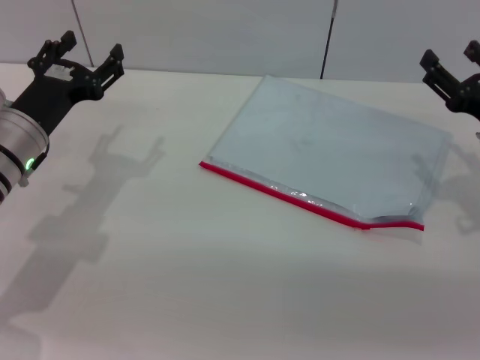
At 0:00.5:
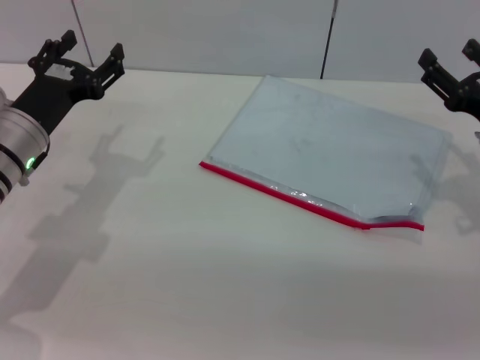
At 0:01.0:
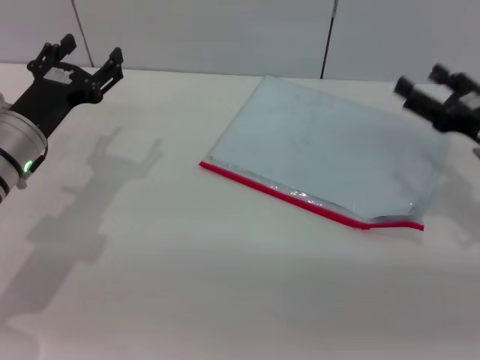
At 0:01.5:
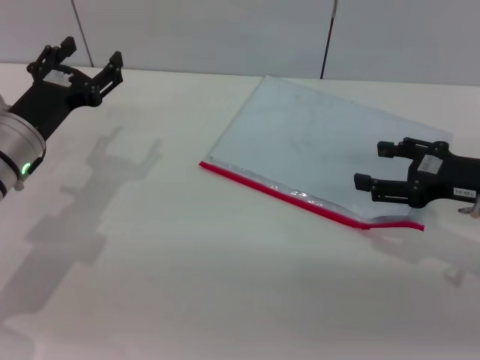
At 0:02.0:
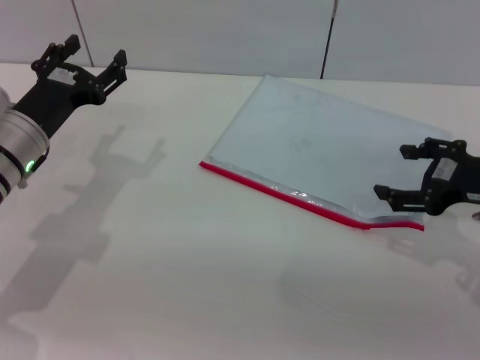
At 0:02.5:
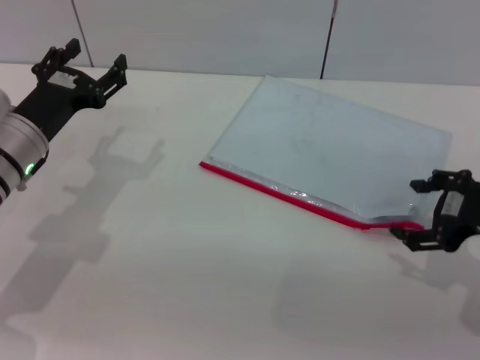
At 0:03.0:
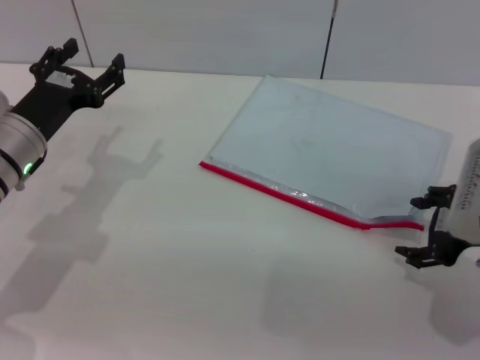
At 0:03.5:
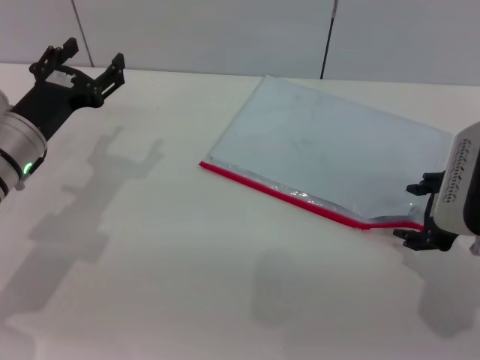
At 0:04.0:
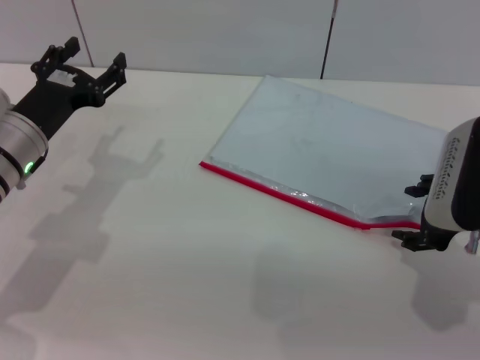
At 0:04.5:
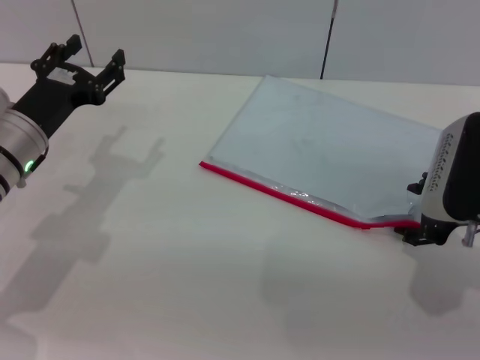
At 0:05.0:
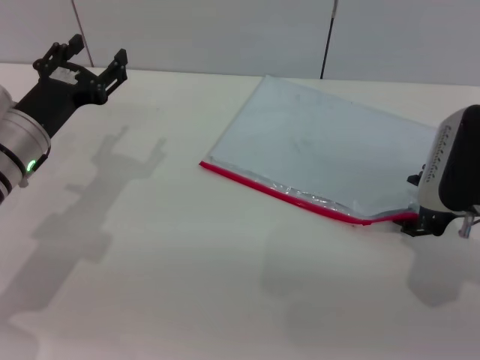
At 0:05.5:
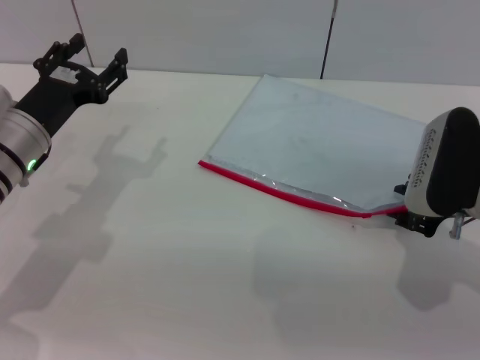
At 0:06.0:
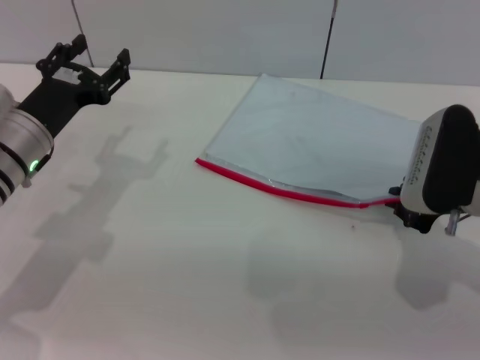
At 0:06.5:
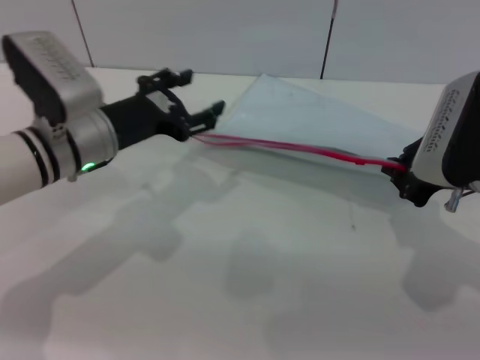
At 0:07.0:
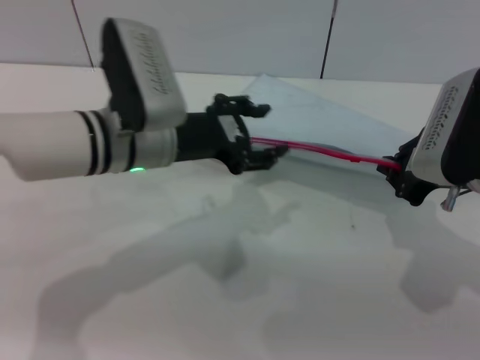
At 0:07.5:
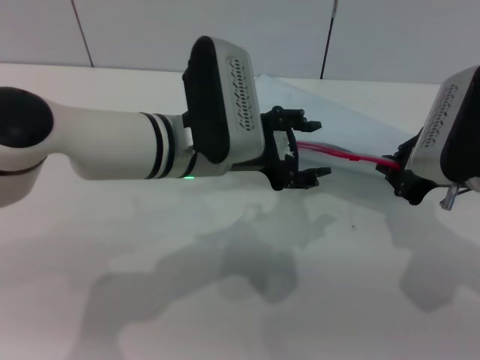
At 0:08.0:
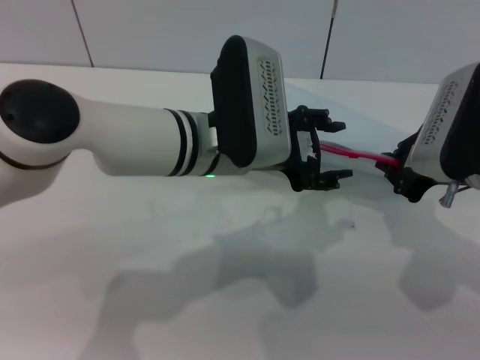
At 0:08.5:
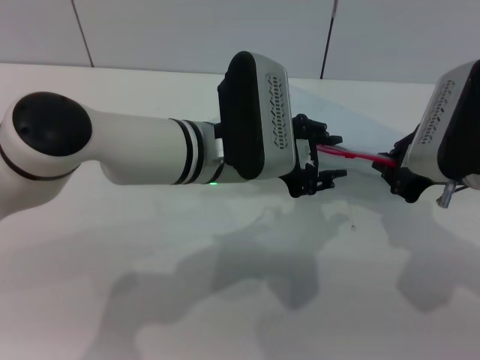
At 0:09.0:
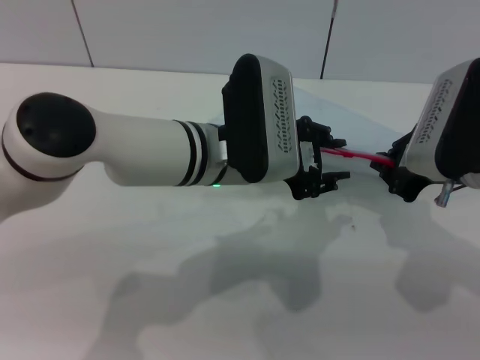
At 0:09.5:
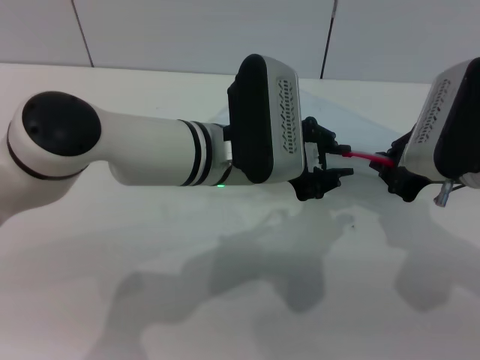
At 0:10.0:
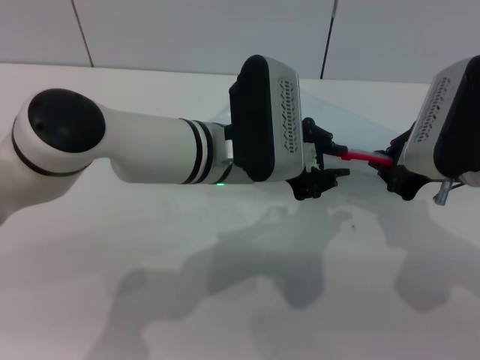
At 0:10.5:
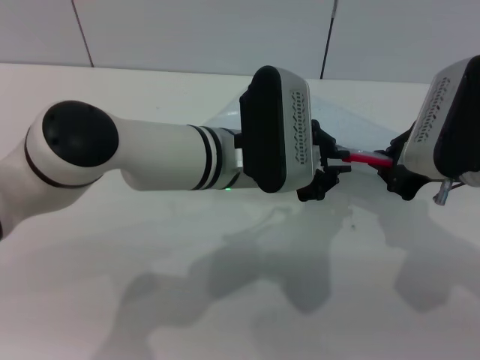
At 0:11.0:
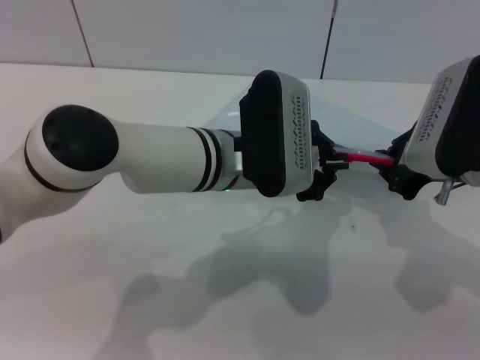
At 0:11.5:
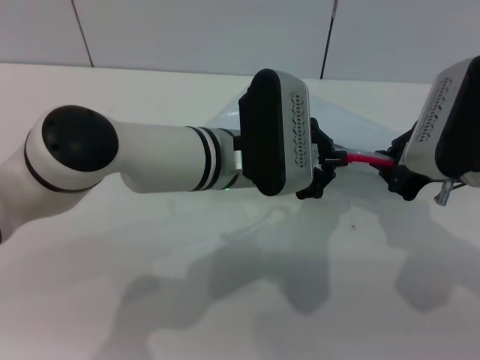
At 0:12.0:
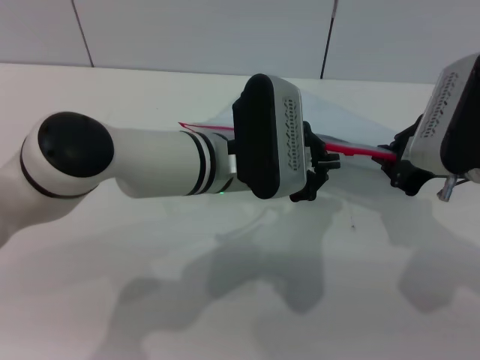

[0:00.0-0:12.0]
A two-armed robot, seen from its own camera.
Step, 0:00.0 to 0:07.0: Pick up the transparent plastic bag with the right gripper.
0:04.0 to 0:06.0: The right gripper closes its fingers.
0:06.0 to 0:08.0: The left gripper shifts approximately 20 cm to the right.
0:08.0 to 0:10.0: The left gripper closes up.
0:10.0 to 0:12.0: The two grippers keep their place.

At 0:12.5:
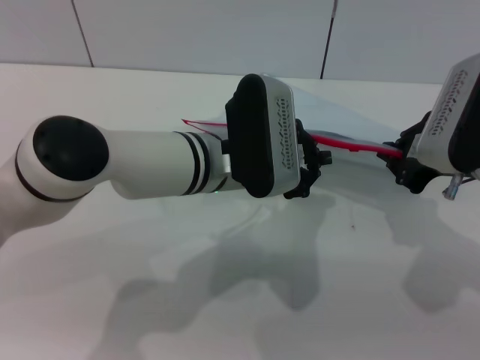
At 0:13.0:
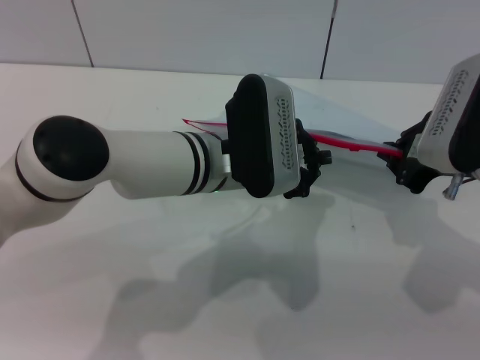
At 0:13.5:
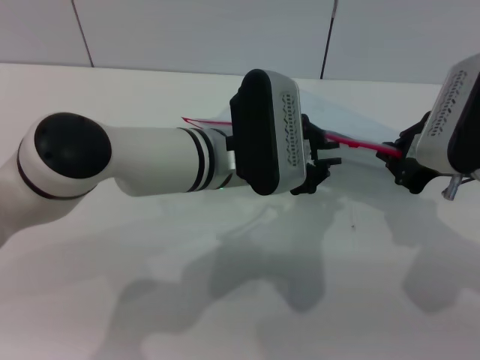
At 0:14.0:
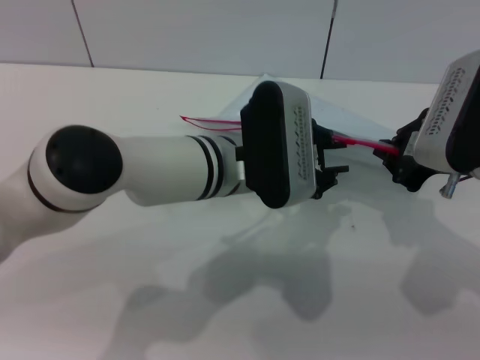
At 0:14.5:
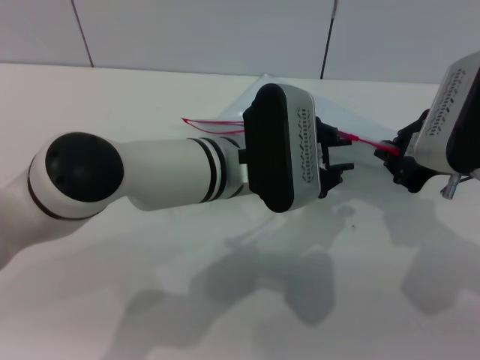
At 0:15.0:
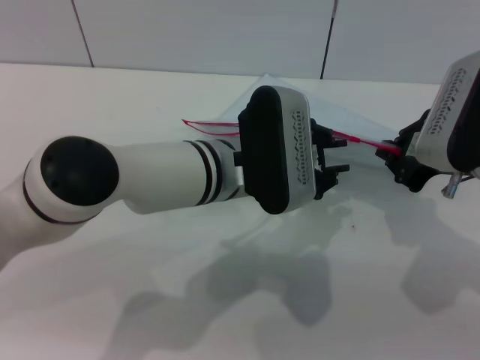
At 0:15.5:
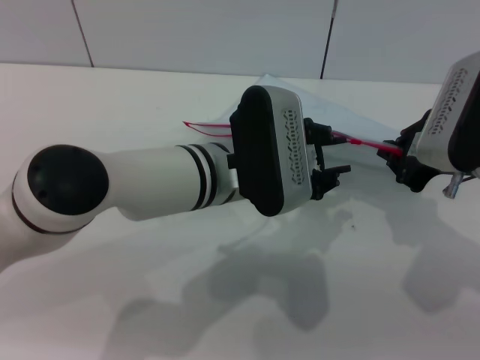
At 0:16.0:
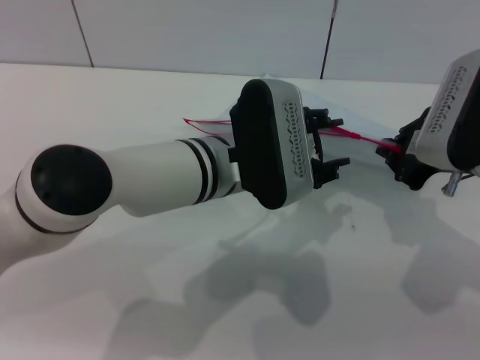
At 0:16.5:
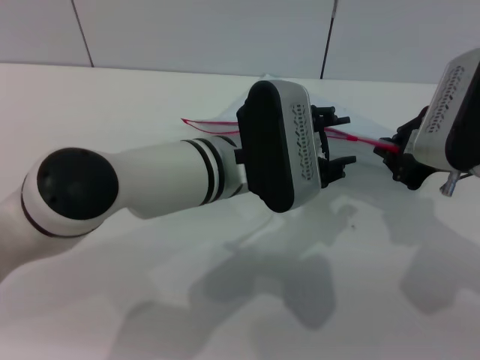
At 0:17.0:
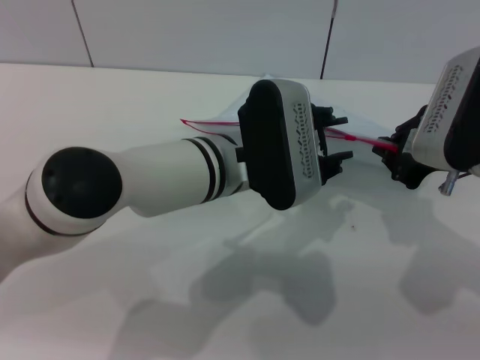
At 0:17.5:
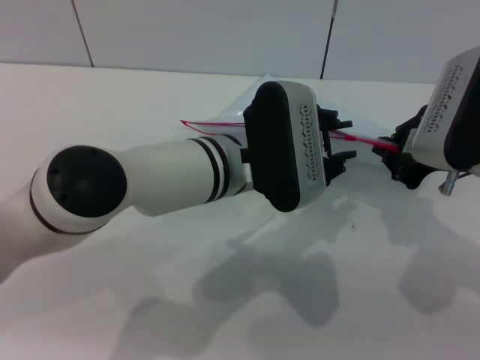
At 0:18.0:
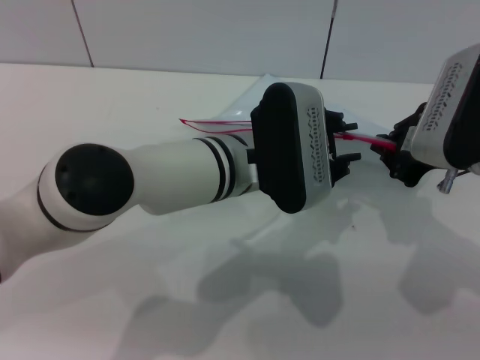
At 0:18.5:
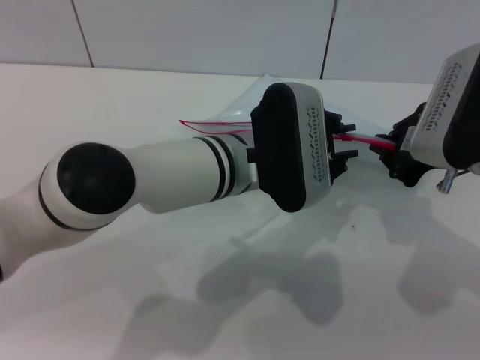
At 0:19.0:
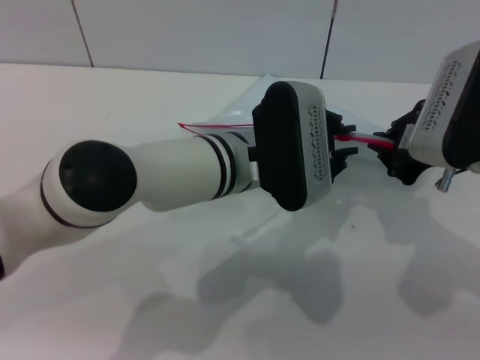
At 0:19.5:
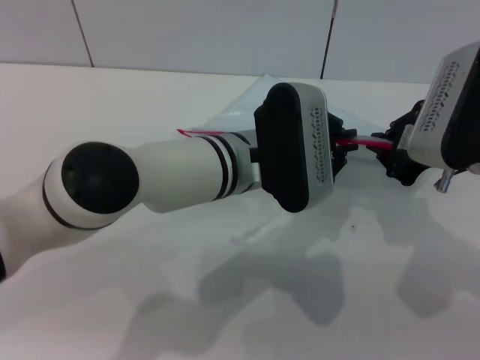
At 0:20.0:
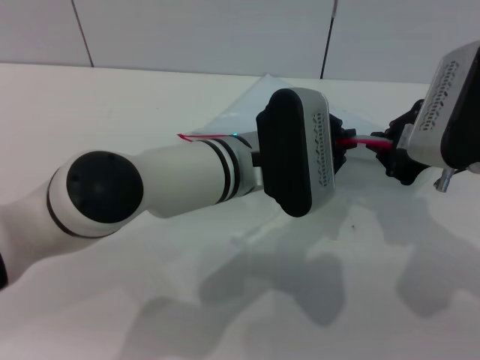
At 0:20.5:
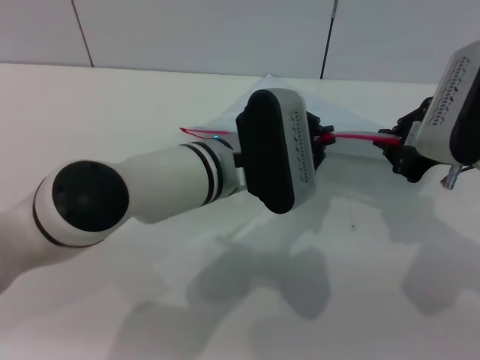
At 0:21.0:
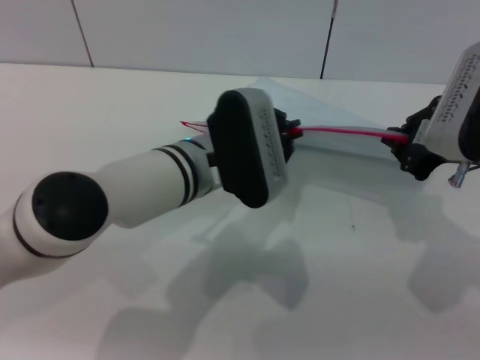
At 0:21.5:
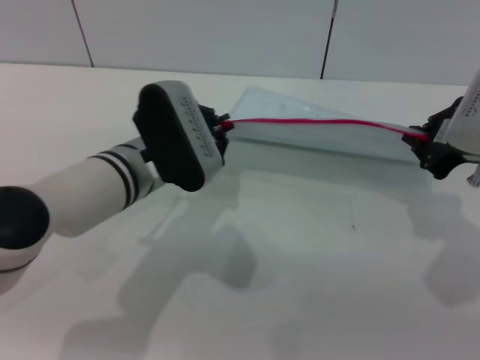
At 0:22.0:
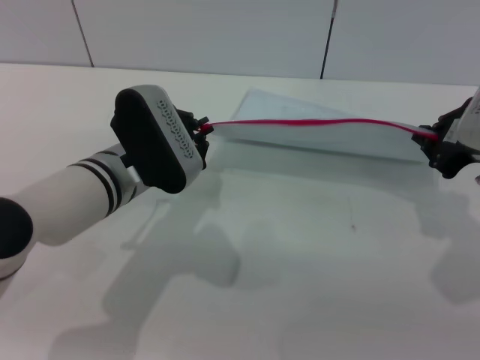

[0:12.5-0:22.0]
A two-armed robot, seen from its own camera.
0:12.5 to 0:14.5: The grippers make only small movements.
0:14.5 to 0:16.5: Both grippers stay about where they are.
0:16.5 to 0:20.0: Both grippers stay put.
0:20.0 to 0:22.0: The left gripper goes roughly 10 cm to the left.

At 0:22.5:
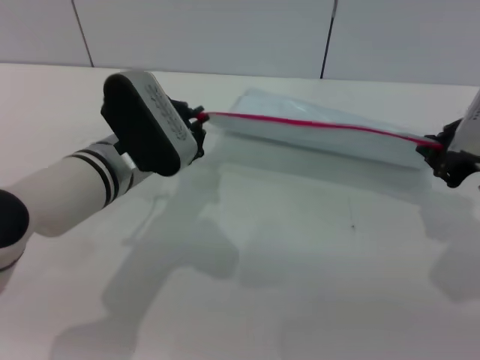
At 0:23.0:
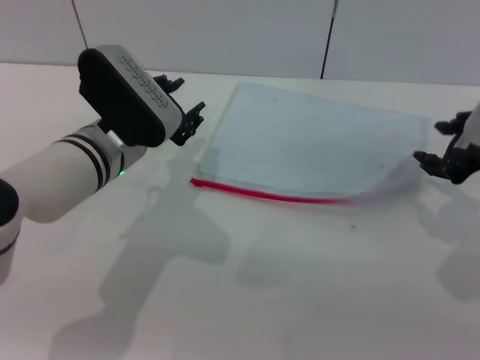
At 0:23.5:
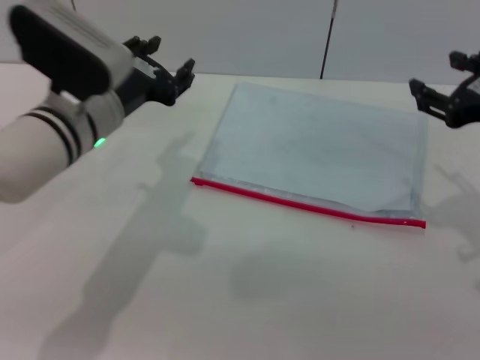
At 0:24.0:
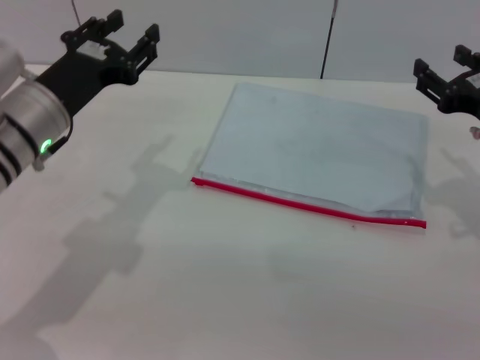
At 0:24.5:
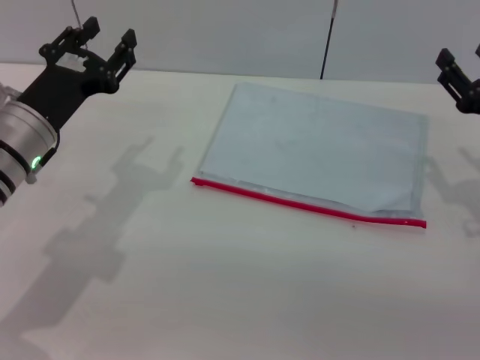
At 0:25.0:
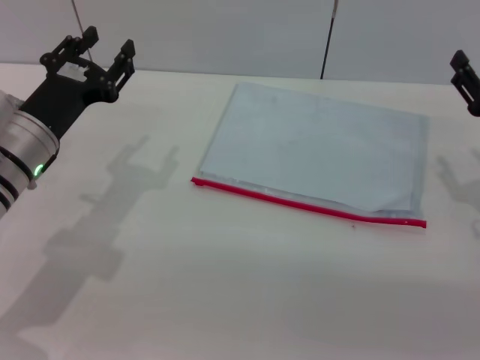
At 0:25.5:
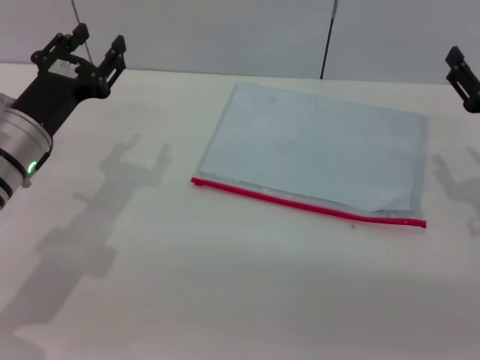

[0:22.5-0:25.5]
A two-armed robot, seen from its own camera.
0:22.5 to 0:24.0: The left gripper shifts about 10 cm to the left, and opens its fingers, while the right gripper opens its fingers.
0:24.0 to 0:25.5: The right gripper shifts about 5 cm downward.

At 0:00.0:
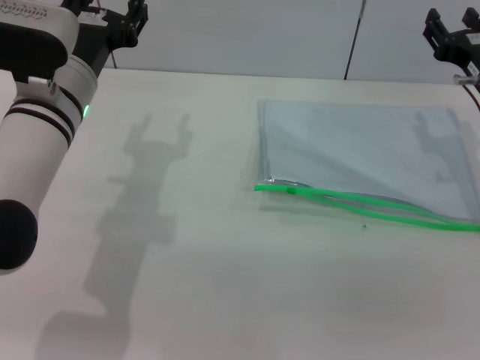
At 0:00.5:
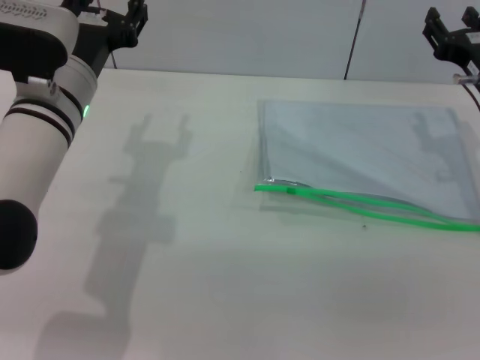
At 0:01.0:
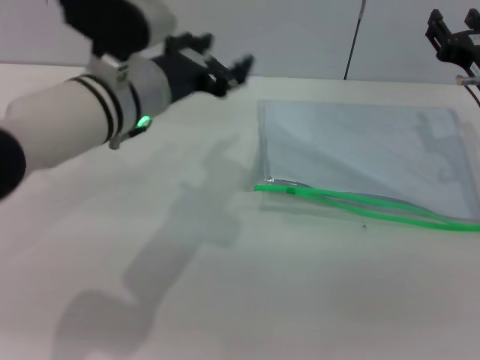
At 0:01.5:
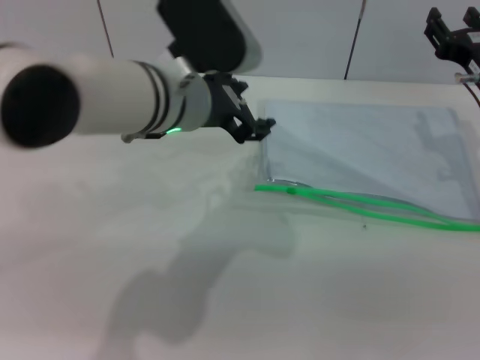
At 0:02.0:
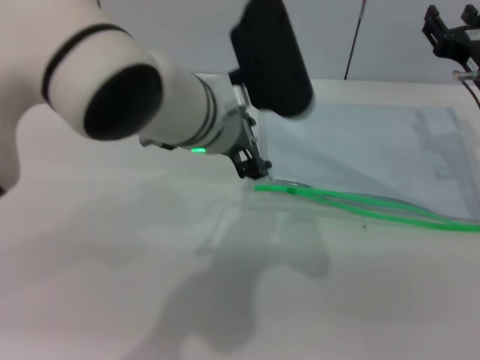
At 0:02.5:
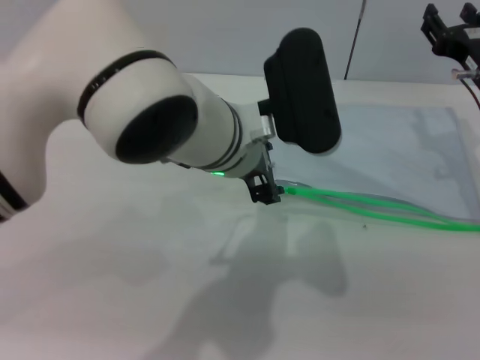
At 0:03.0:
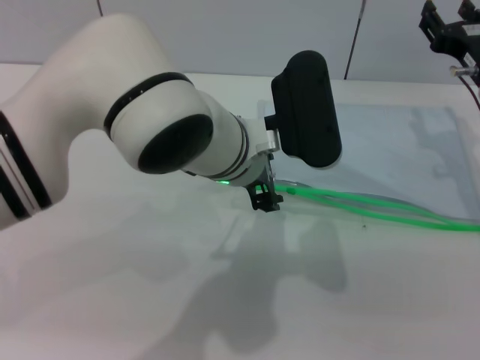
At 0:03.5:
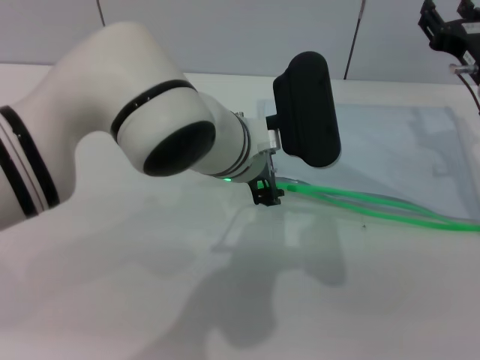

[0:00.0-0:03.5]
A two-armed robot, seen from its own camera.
0:00.0 to 0:02.0: The left gripper shifts approximately 15 cm to the right.
